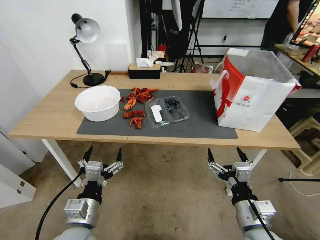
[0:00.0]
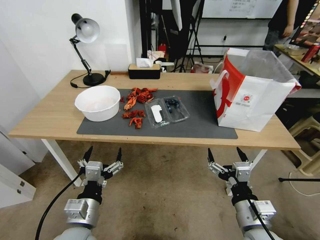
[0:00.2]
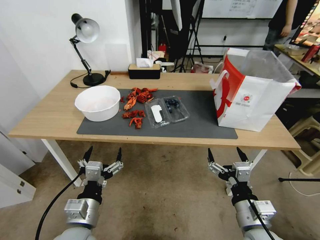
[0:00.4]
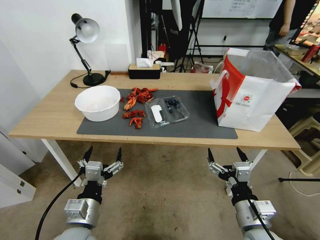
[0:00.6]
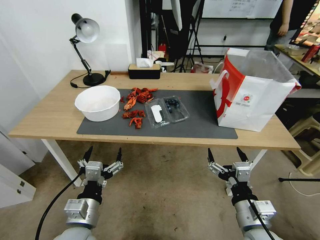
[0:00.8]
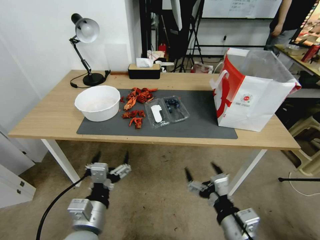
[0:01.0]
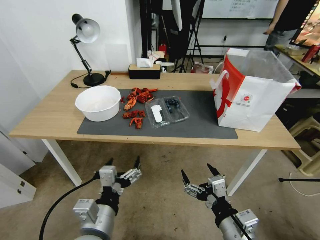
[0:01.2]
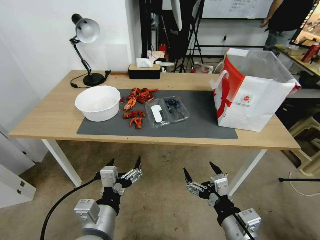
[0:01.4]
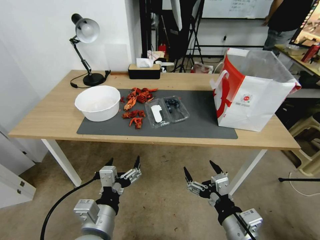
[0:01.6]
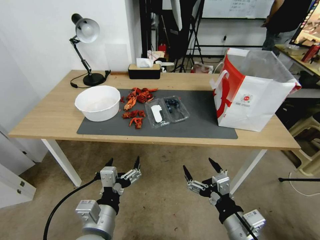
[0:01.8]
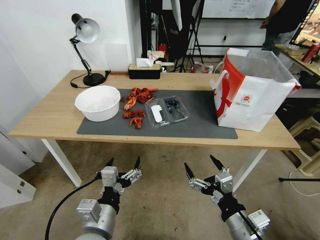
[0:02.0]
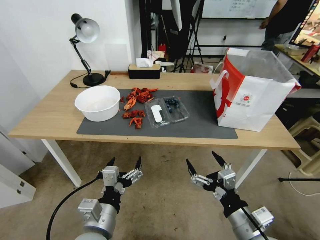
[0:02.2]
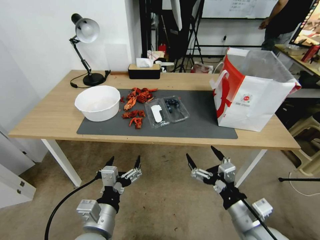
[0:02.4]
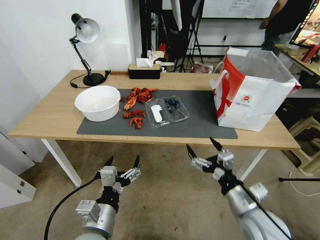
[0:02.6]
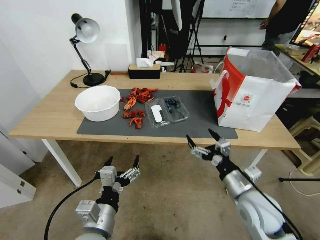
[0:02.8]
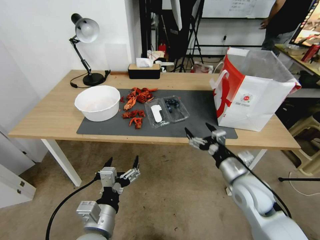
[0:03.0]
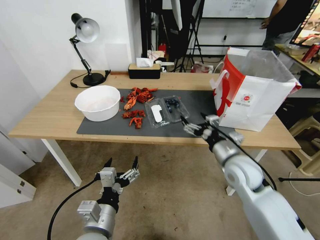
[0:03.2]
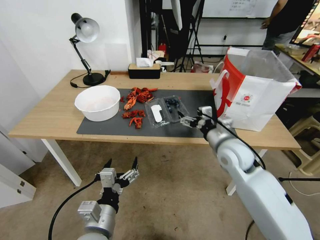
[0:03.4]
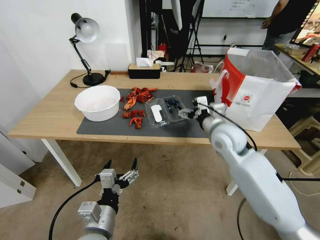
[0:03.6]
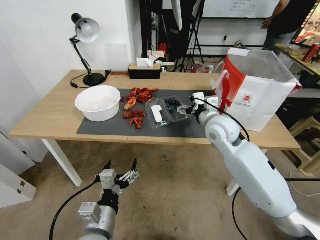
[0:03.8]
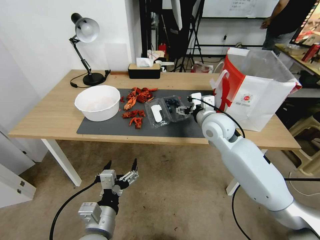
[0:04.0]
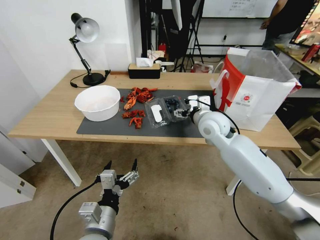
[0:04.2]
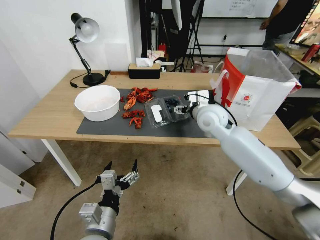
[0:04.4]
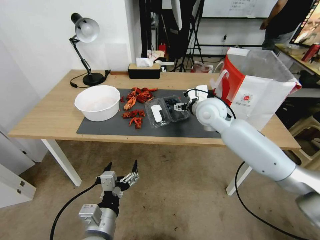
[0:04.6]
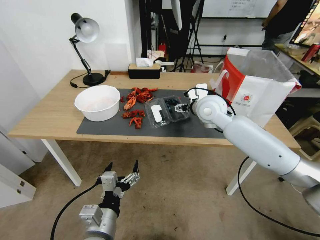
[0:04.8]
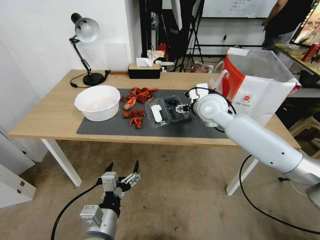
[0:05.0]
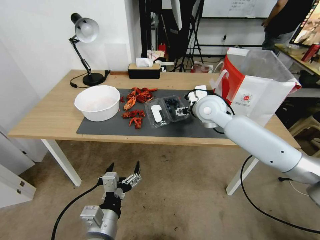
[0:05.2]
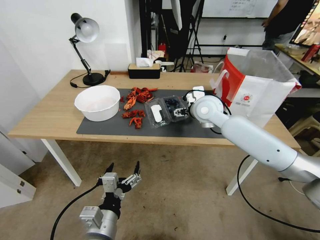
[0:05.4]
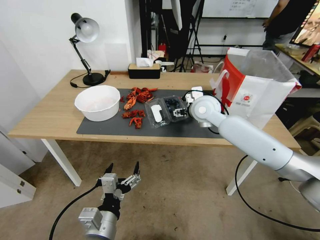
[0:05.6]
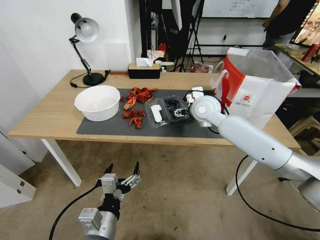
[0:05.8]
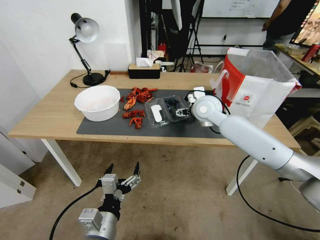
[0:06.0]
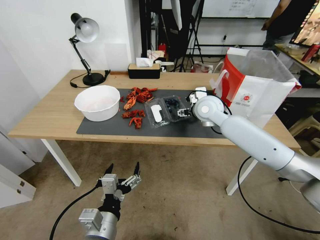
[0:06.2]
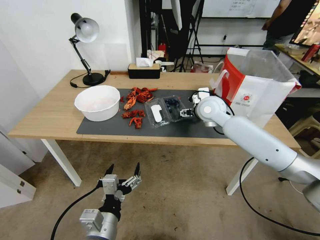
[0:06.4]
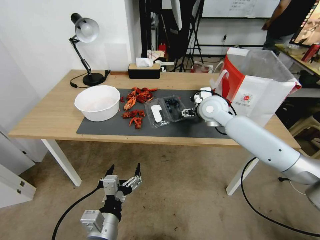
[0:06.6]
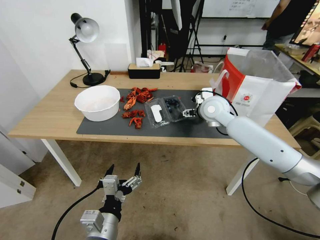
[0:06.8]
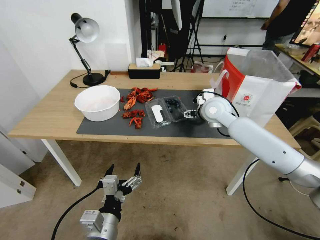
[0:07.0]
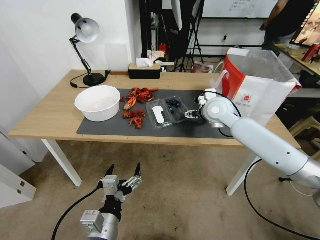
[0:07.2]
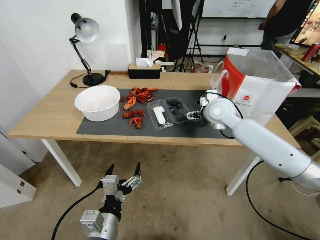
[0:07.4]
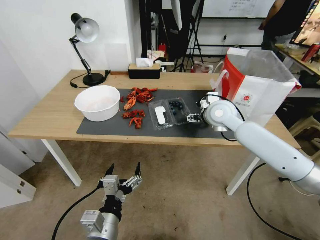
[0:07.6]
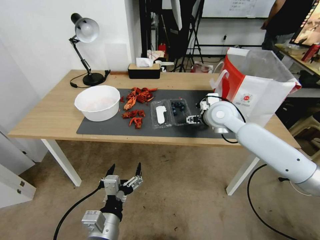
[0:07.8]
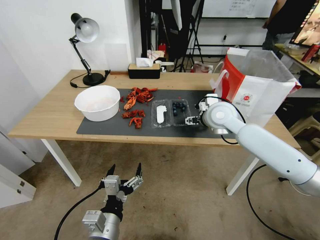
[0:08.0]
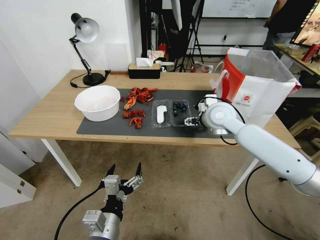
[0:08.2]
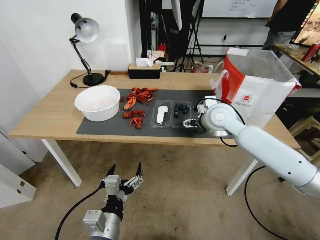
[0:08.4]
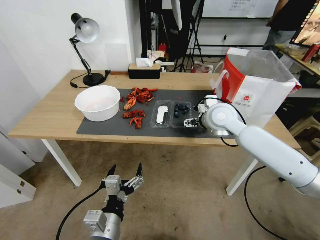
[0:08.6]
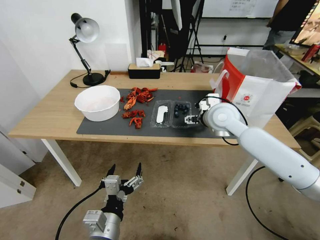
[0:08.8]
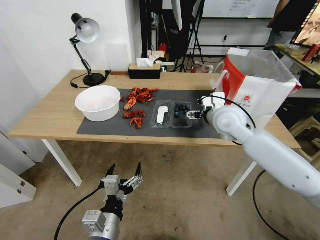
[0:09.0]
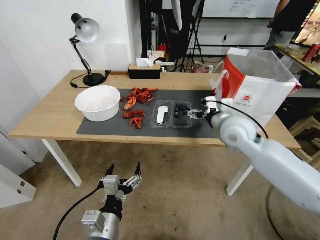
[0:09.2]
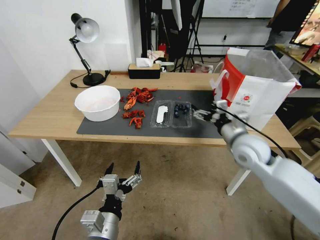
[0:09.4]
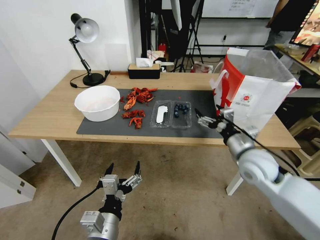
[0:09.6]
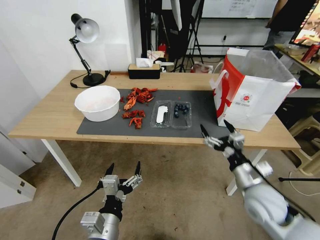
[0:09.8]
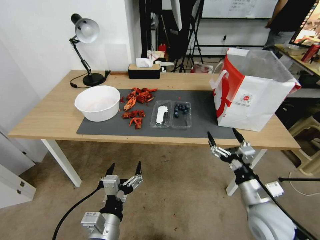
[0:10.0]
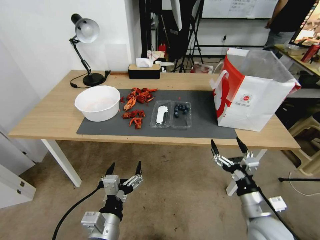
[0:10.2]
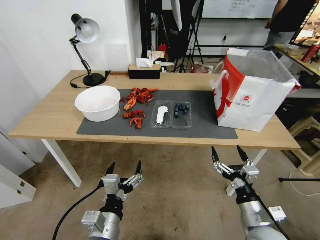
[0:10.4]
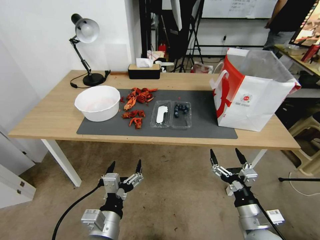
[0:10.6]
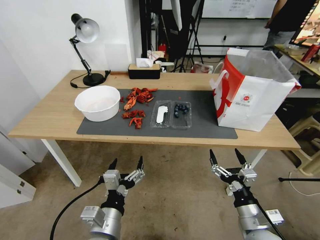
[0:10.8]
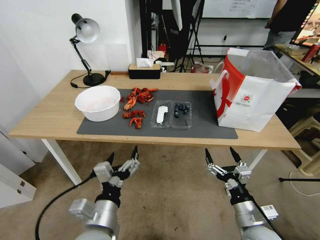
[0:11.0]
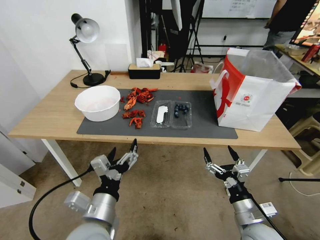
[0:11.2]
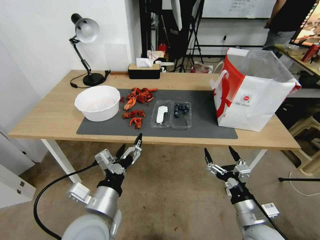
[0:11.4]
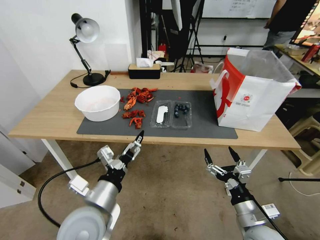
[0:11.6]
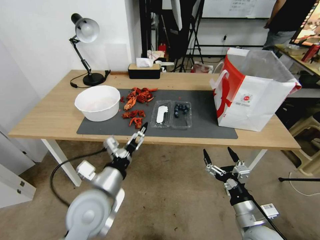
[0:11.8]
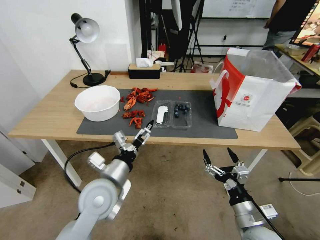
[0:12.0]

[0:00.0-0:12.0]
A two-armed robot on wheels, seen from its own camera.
Task of the whole recording: Close the takeout container lid, then place the container into the takeout bag.
0:01.6 to 0:03.0: The right gripper is displaced forward by some 15 cm.
0:03.0 to 0:04.4: The right gripper moves forward, upward and to the left, about 25 cm.
0:04.4 to 0:07.6: The grippers move only a little.
0:07.6 to 0:09.0: The grippers stay close to where they were, moving slightly.
0:09.0 to 0:10.4: The right gripper is displaced backward and downward by roughly 35 cm.
0:10.4 to 0:12.0: The left gripper moves forward and upward, roughly 15 cm.

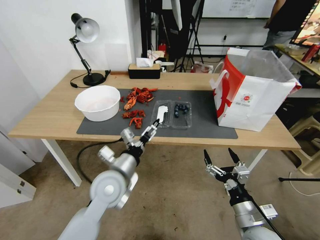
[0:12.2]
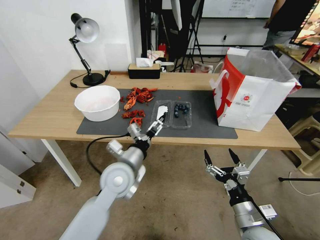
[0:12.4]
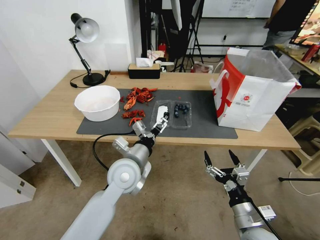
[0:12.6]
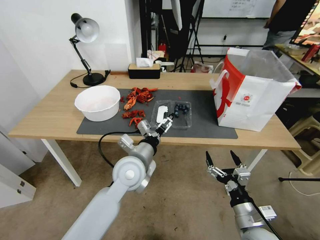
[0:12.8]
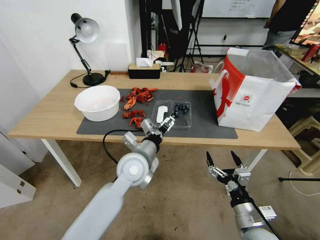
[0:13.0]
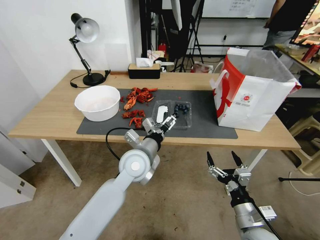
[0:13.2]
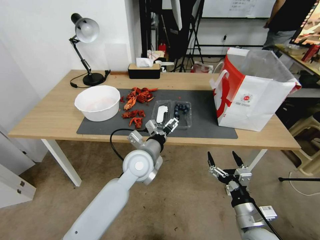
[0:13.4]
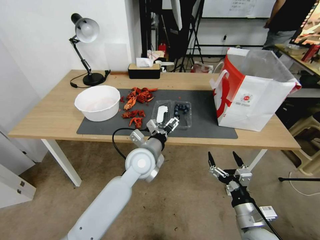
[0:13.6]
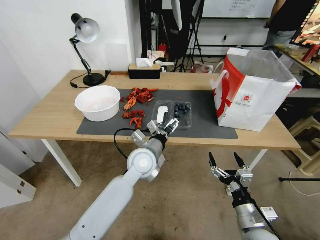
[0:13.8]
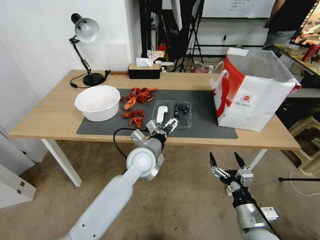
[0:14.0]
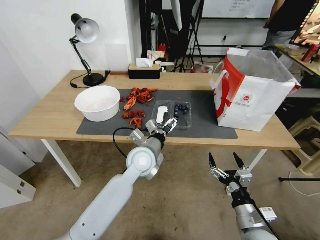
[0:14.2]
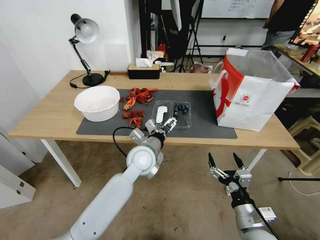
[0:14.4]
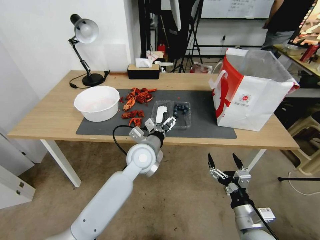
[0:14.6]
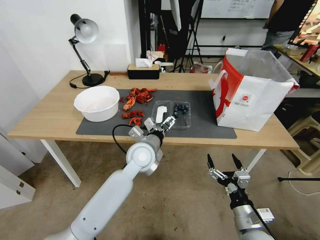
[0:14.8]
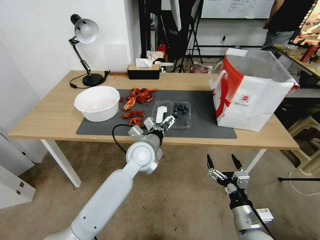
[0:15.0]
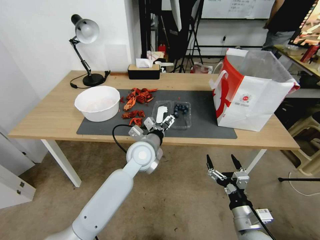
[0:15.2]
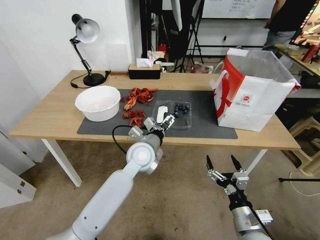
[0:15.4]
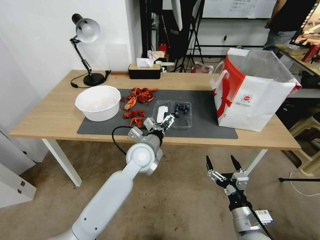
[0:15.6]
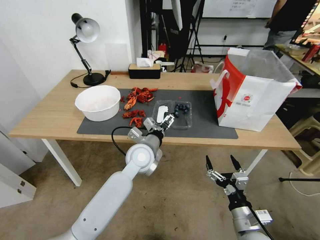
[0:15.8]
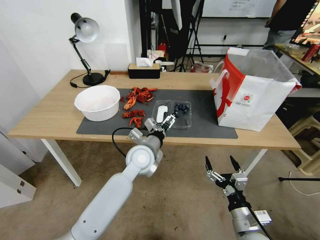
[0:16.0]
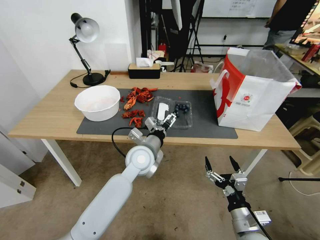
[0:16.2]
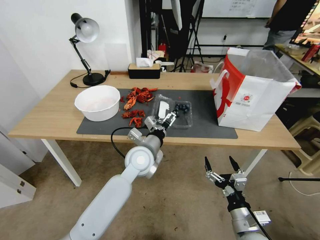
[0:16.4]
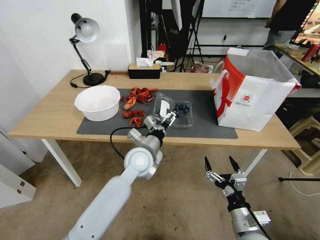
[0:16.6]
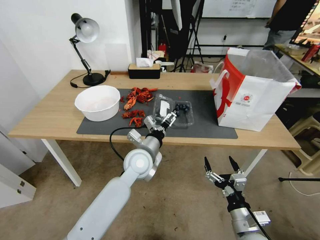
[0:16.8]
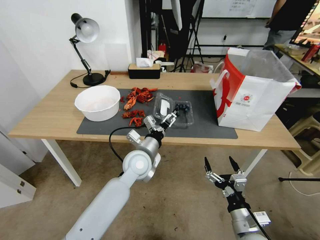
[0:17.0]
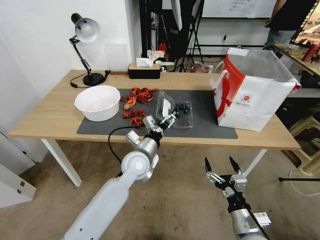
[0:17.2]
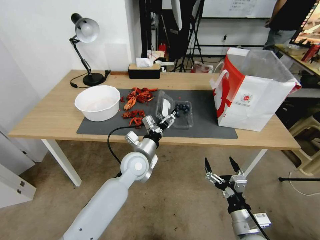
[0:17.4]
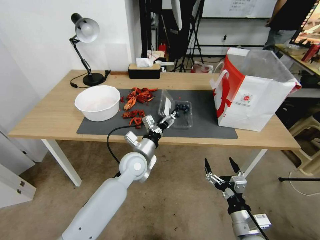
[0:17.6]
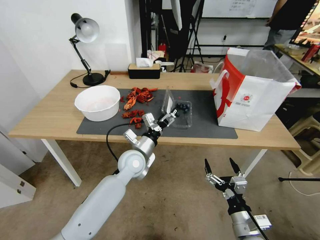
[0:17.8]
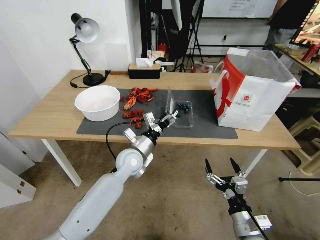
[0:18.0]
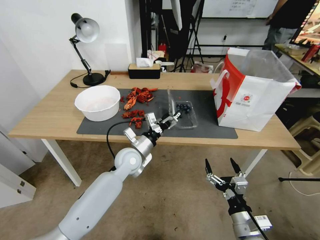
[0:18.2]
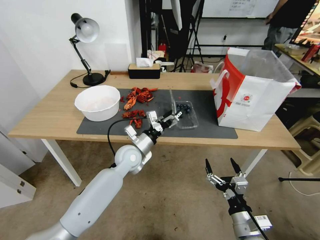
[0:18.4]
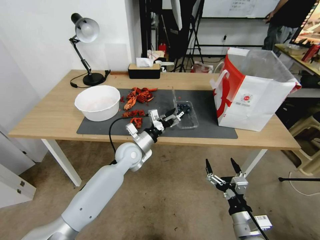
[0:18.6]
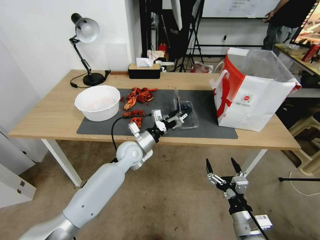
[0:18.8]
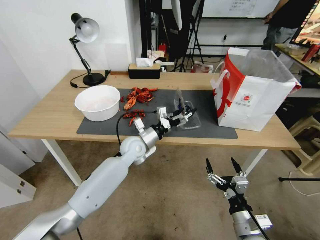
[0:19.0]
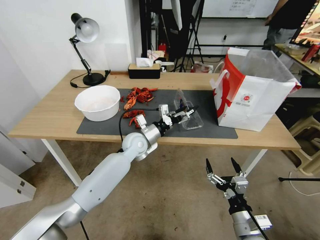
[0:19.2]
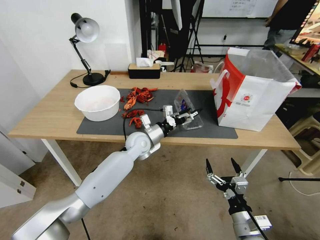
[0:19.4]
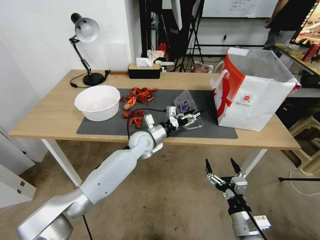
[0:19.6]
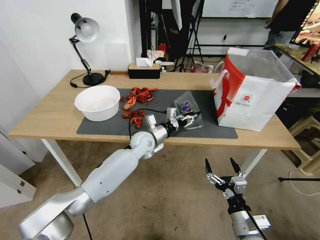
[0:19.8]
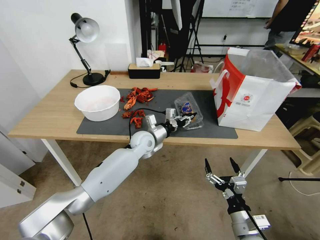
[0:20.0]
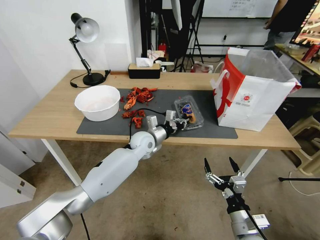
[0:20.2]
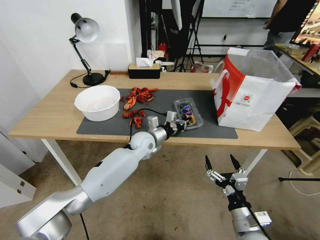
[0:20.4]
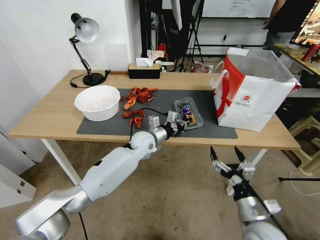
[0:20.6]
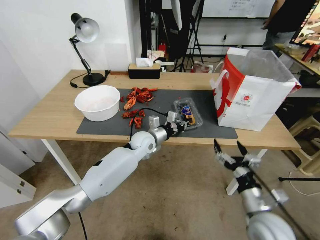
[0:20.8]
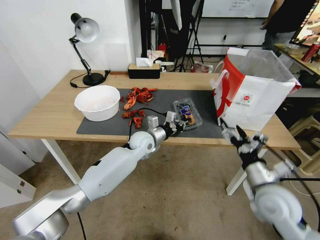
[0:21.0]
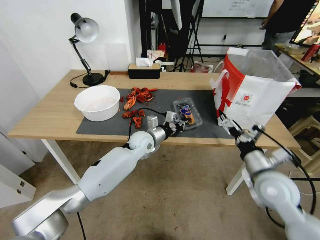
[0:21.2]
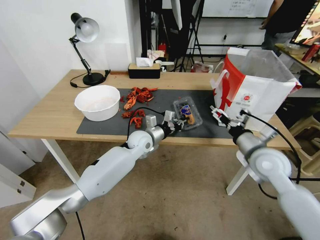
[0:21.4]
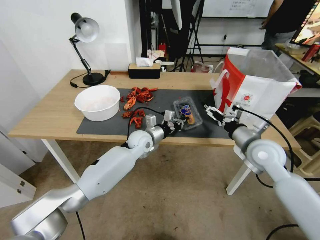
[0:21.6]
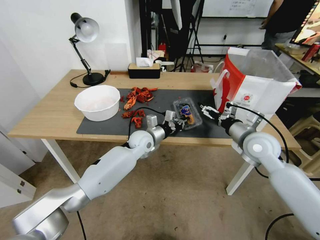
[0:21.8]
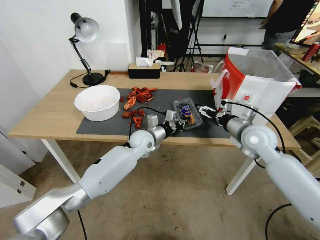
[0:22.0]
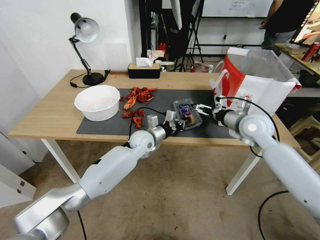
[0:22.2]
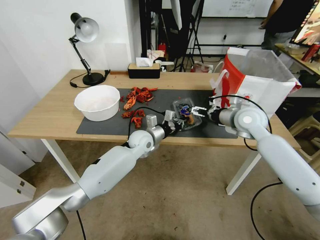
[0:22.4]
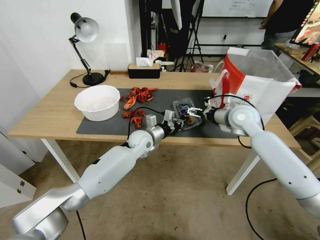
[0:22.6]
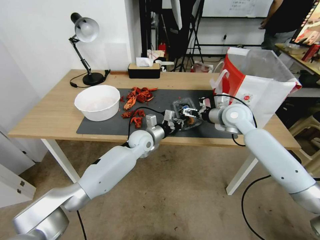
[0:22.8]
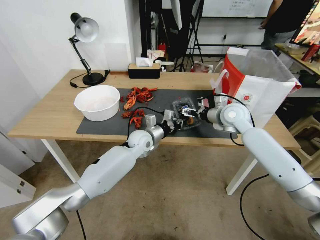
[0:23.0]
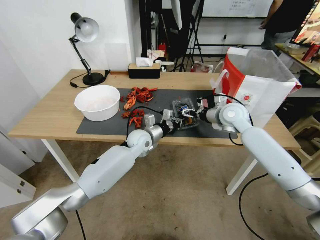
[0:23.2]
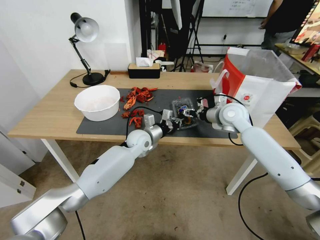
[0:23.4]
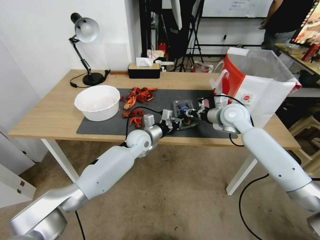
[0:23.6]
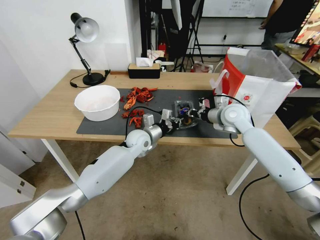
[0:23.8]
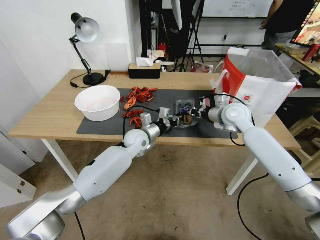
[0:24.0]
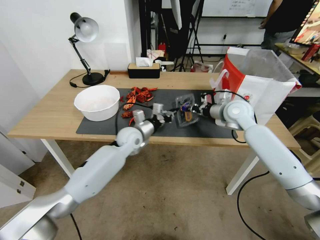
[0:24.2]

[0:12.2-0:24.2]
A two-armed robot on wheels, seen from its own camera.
Task of the whole recording: Close the takeout container lid, then place the container into the takeout bag.
0:12.2 to 0:13.8: The left gripper heads to the right and forward, covering approximately 10 cm.
0:13.8 to 0:16.6: There are only small adjustments of the grippers.
0:16.6 to 0:18.2: The left gripper moves approximately 5 cm.
0:18.2 to 0:19.8: The left gripper shifts approximately 10 cm forward, and closes.
0:19.8 to 0:21.2: The left gripper closes up. The right gripper is displaced forward and upward by approximately 20 cm.
0:21.2 to 0:22.6: The right gripper travels forward by approximately 20 cm.
0:22.6 to 0:24.2: The left gripper changes place by about 5 cm. Meanwhile the right gripper closes.
